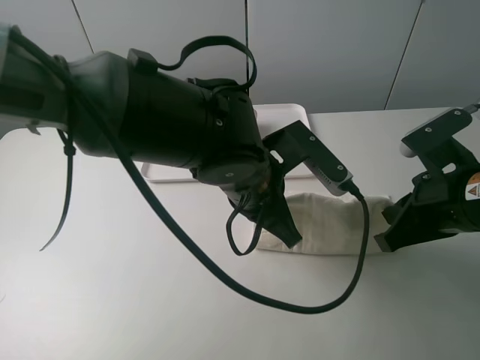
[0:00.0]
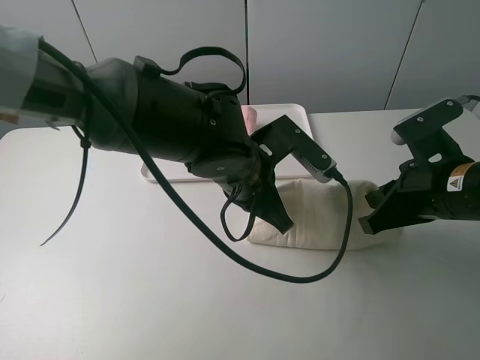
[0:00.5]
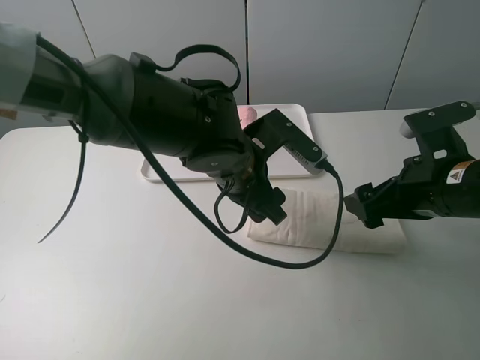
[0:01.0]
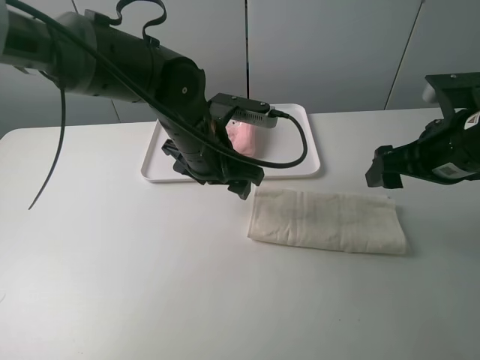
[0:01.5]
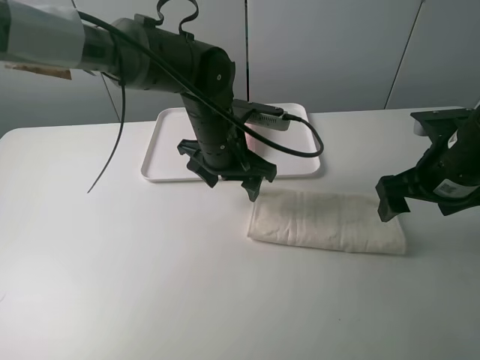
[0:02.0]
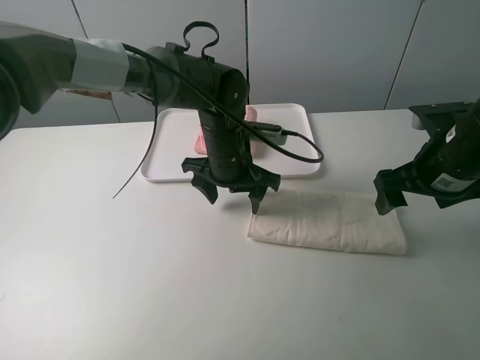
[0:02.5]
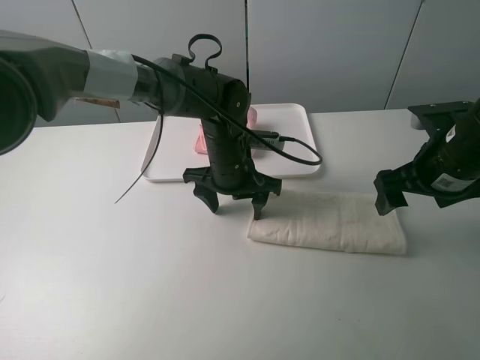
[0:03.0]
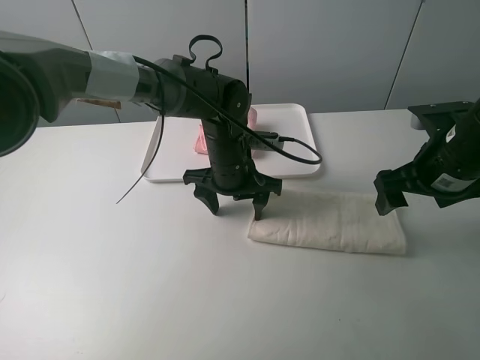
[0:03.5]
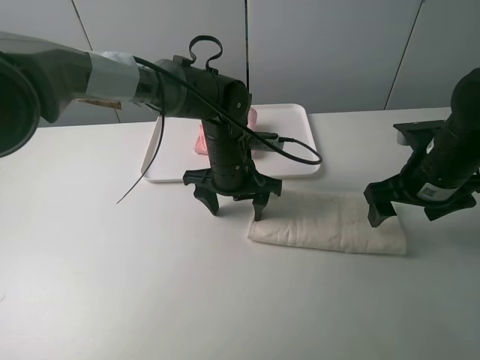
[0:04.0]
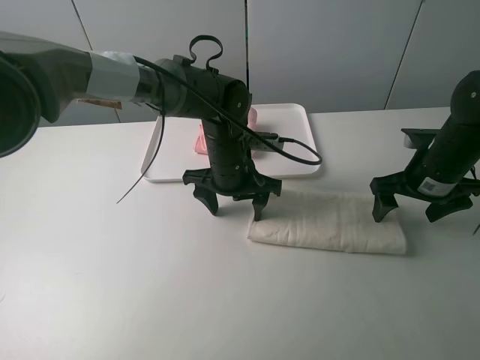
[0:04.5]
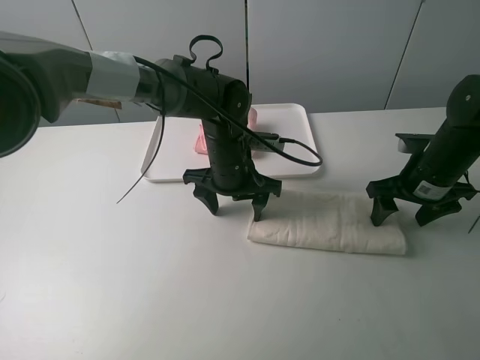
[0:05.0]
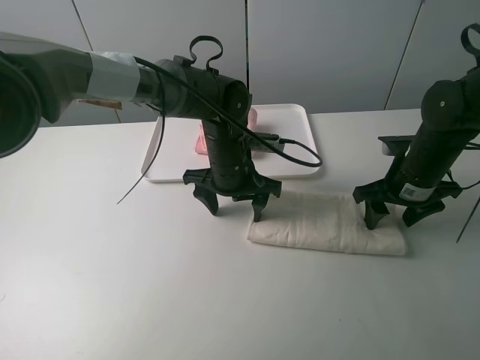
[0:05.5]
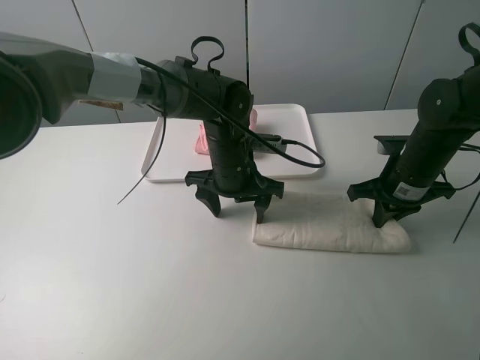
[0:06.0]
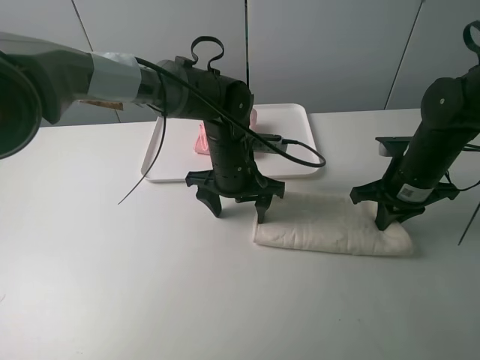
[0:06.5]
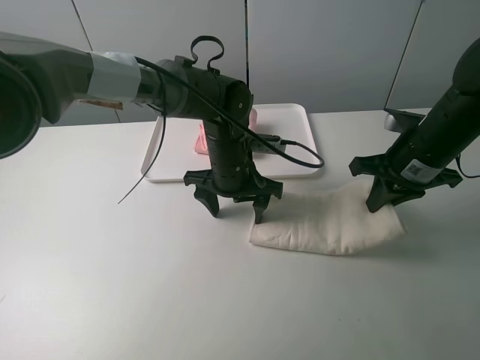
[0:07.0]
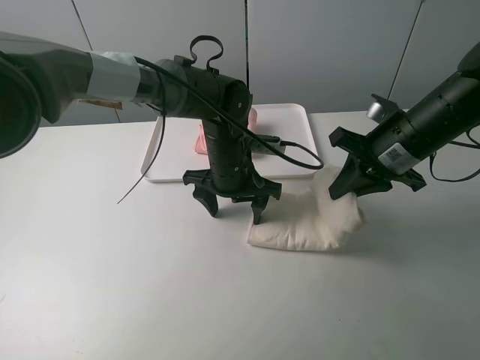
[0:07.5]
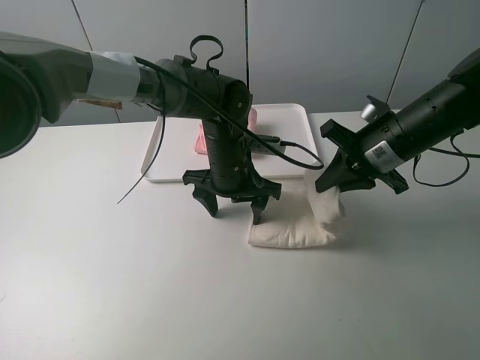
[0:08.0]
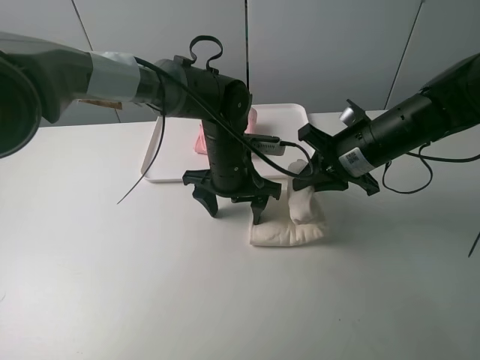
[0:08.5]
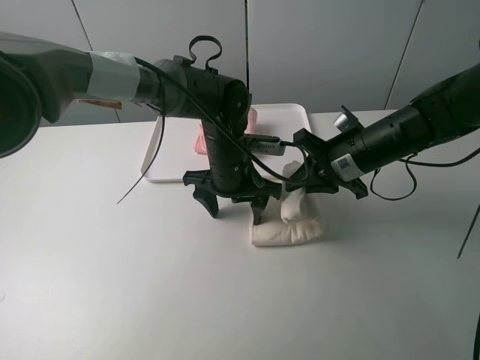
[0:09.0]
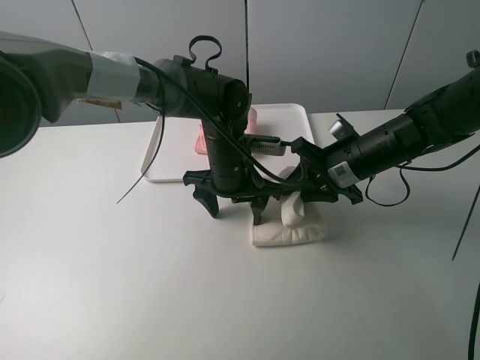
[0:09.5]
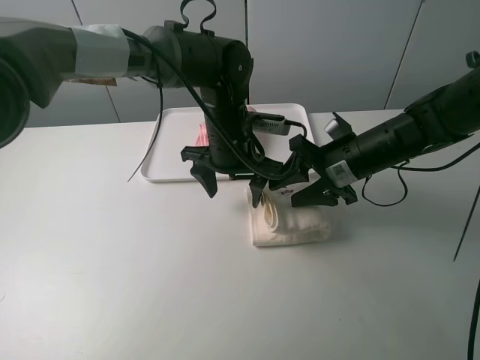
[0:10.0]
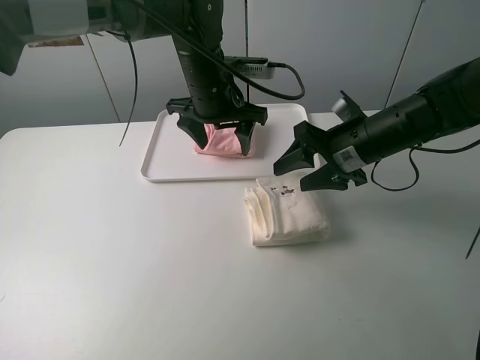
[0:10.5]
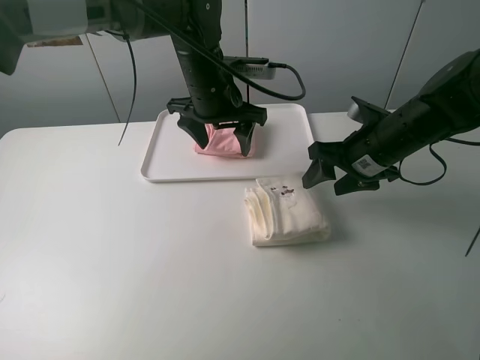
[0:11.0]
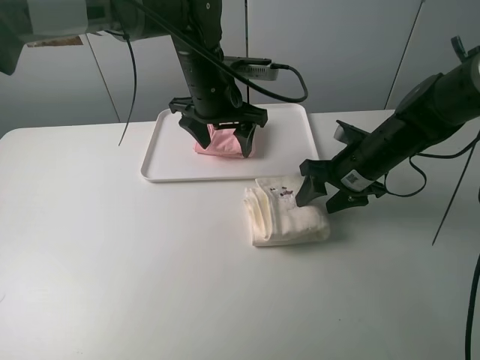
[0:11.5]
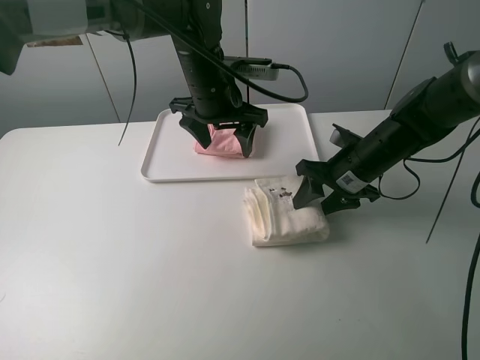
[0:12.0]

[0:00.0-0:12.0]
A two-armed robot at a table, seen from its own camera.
Task of the whole recording: fold one of the towels by two grippers and place it on the tray,then fold another towel by two grippers and place it on the folded towel.
Step, 0:01.5 to 0:03.5: Press the white towel with the left gripper.
Step, 0:04.0 to 0:06.0: Grasp the white towel with the right gripper.
Step, 0:06.5 to 0:10.5: Fold the white towel from right to left with right gripper.
0:00.0 to 0:02.0: The right gripper heads forward, covering approximately 5 cm, and opens; the left gripper heads forward, covering approximately 10 cm, and opens up.
0:02.0 to 0:04.0: The left gripper changes place by some 5 cm.
0:04.0 to 0:06.0: The right gripper changes place by some 5 cm, and closes its fingers.
0:06.0 to 0:08.0: The right gripper heads upward and to the left, covering some 10 cm.
0:08.0 to 0:10.0: The right gripper shifts by approximately 5 cm, and opens its fingers. Meanwhile the left gripper moves upward, some 5 cm.
0:10.0 to 0:12.0: The left gripper shifts by about 5 cm.

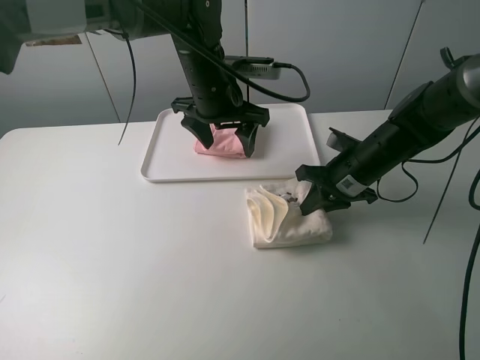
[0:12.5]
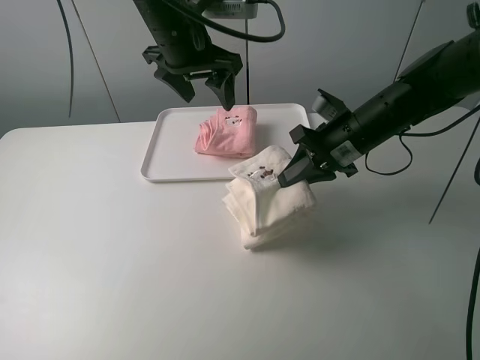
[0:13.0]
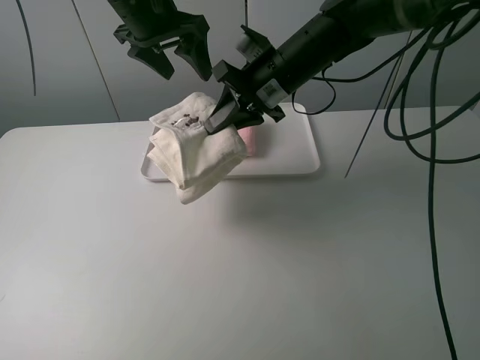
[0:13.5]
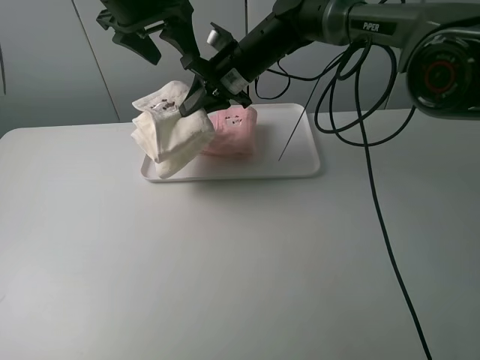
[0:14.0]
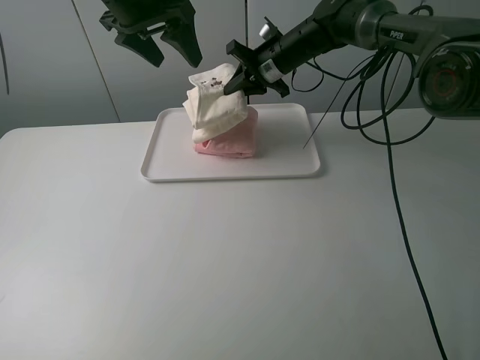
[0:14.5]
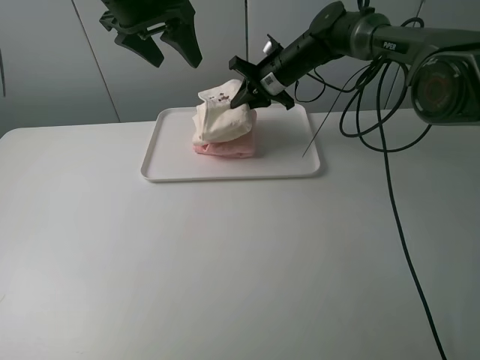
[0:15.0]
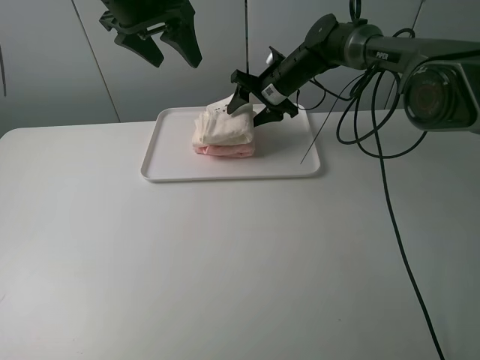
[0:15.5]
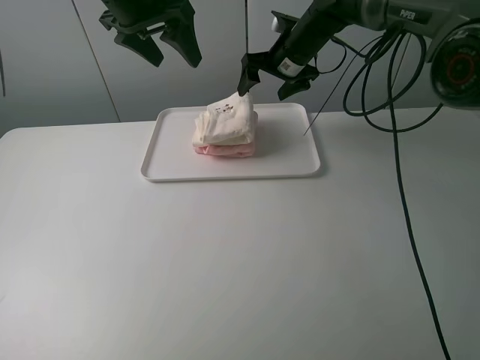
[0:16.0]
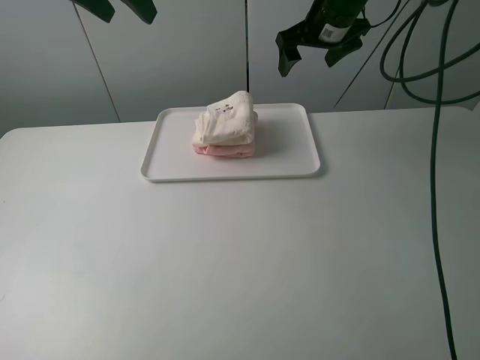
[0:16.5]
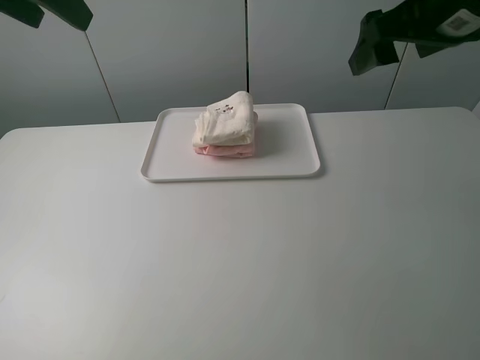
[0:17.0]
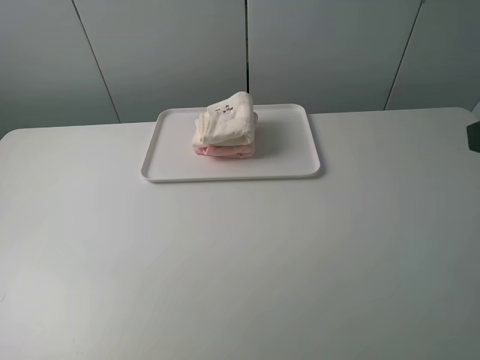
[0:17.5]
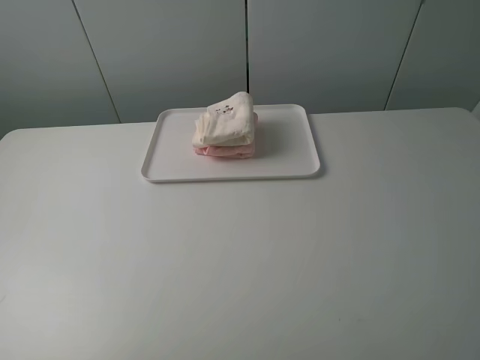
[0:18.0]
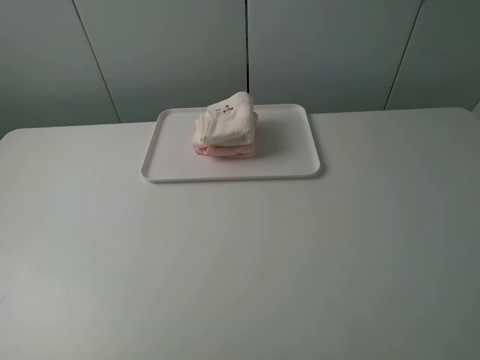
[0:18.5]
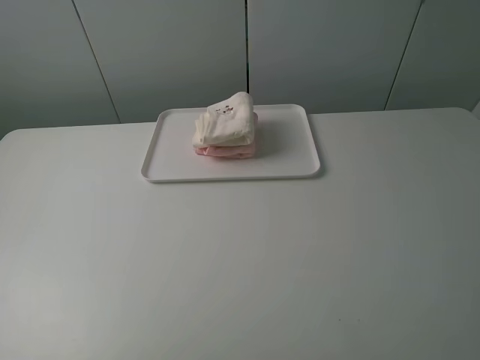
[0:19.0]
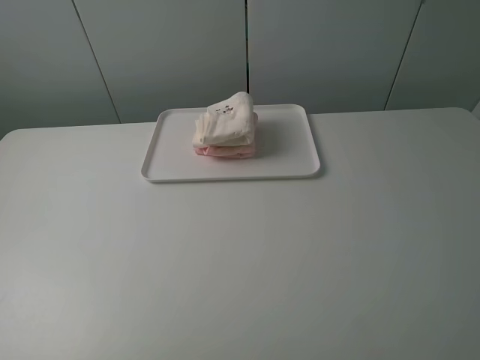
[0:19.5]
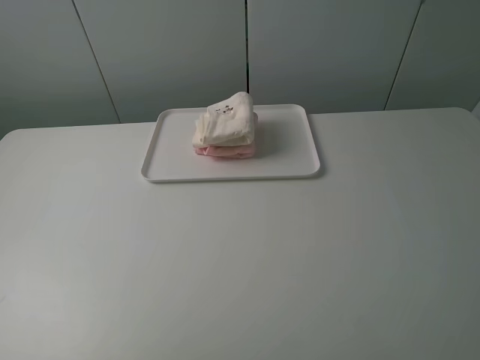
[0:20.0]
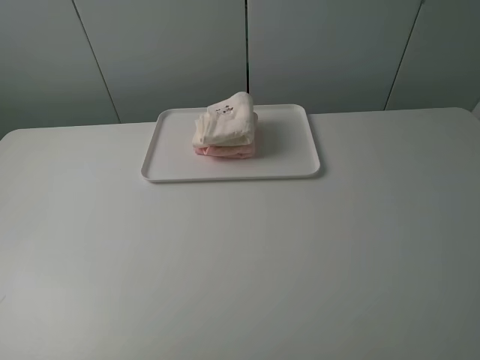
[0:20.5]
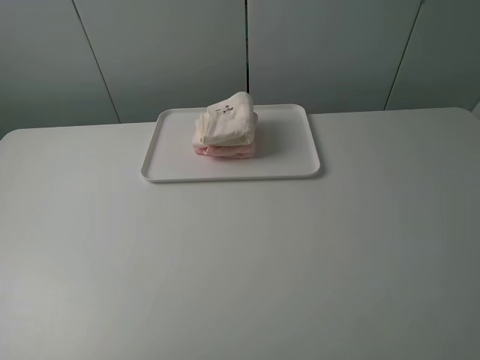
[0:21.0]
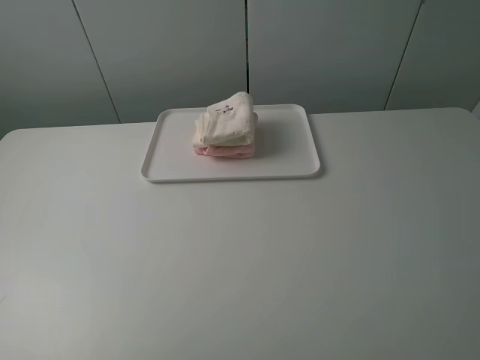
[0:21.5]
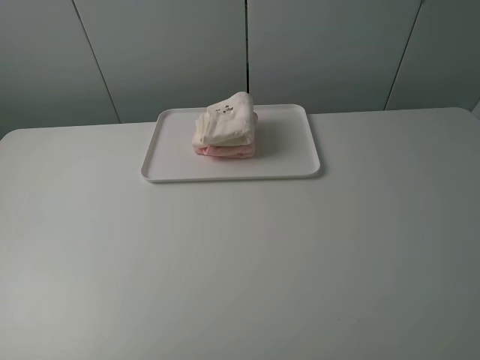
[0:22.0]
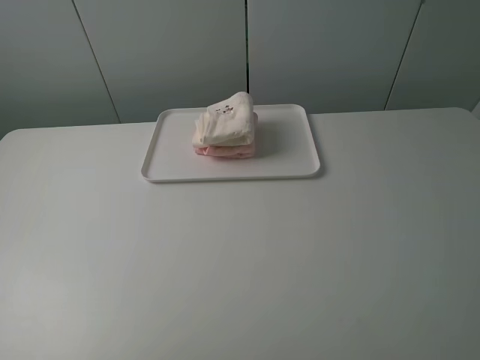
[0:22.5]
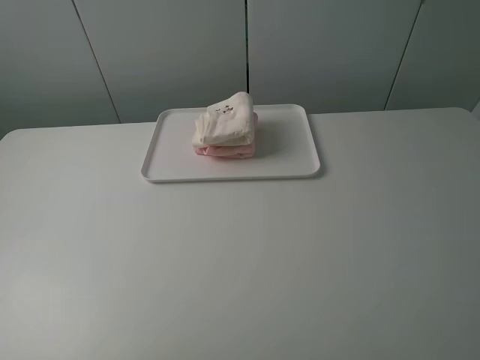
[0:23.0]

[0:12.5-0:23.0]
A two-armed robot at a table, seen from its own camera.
Task of the whole recording: fold one of the towels by two grippers and place it on the tray,then fold another towel by two grippers and place it on the folded towel.
Step, 0:13.0 to 0:15.5: Place the white towel on the pink towel with the right gripper.
0:12.5 to 0:14.5: The right gripper moves forward, to the left and upward, roughly 25 cm. Meanwhile the left gripper is displaced upward and to the left by some 15 cm.
0:14.5 to 0:16.5: The left gripper moves upward and to the left, approximately 10 cm. Meanwhile the right gripper moves upward and to the right, about 10 cm, and opens up.
0:16.5 to 0:19.0: Both grippers move backward, about 40 cm.
0:21.0 to 0:23.0: The two grippers keep their place.
